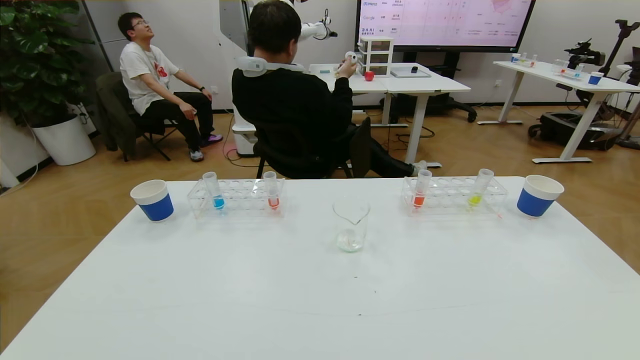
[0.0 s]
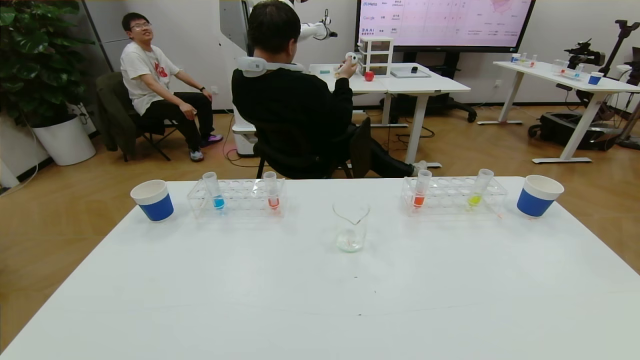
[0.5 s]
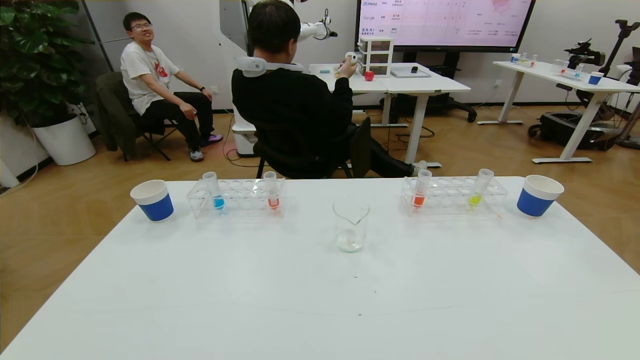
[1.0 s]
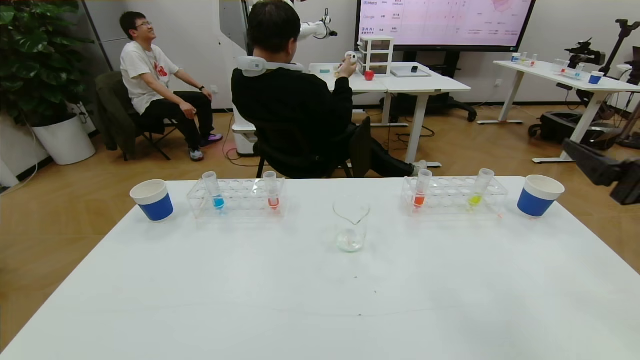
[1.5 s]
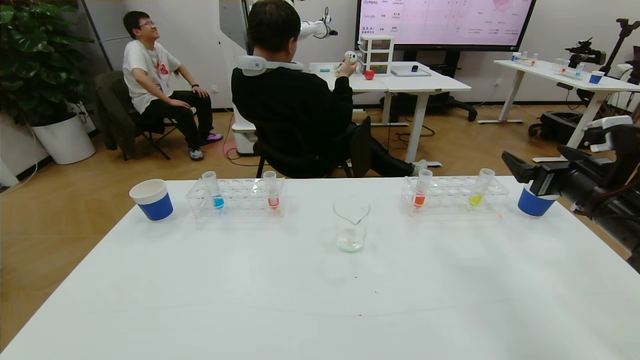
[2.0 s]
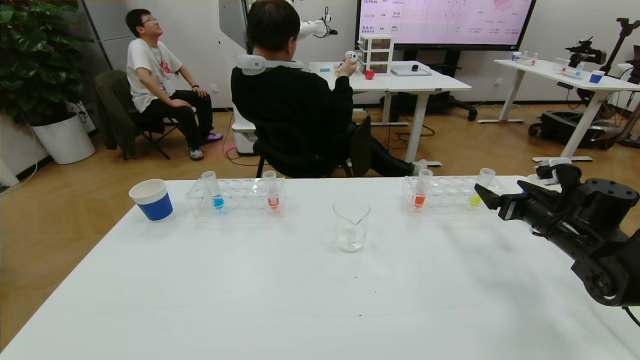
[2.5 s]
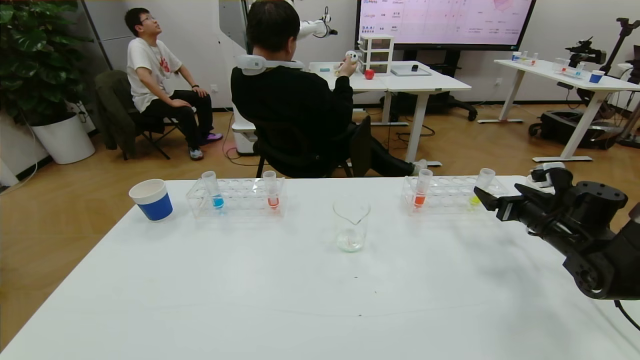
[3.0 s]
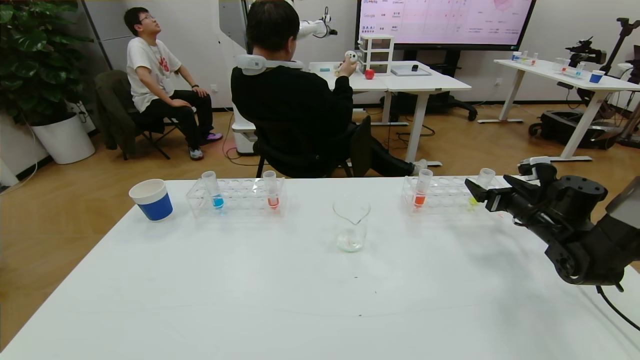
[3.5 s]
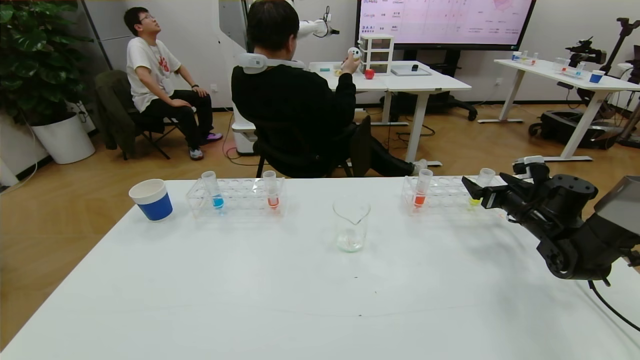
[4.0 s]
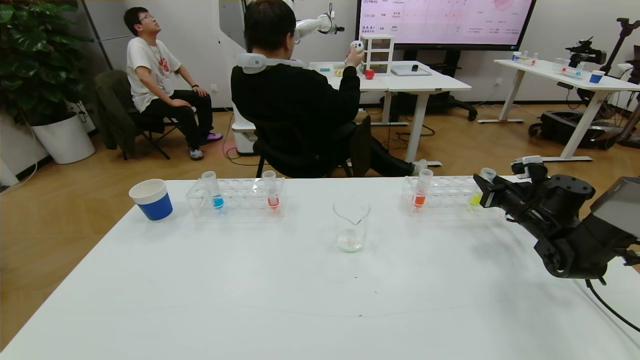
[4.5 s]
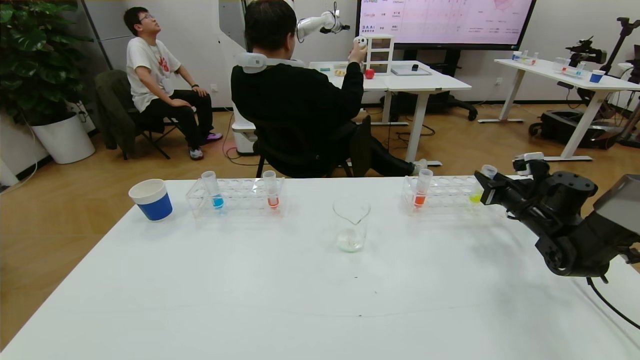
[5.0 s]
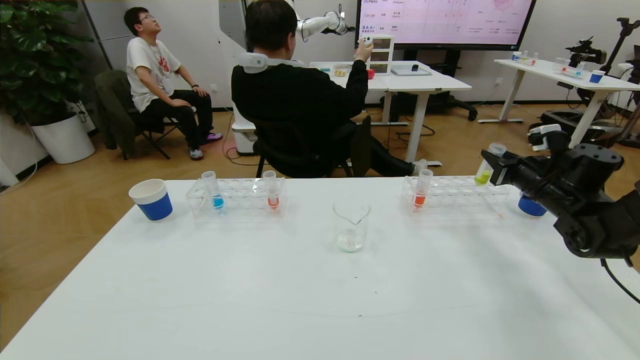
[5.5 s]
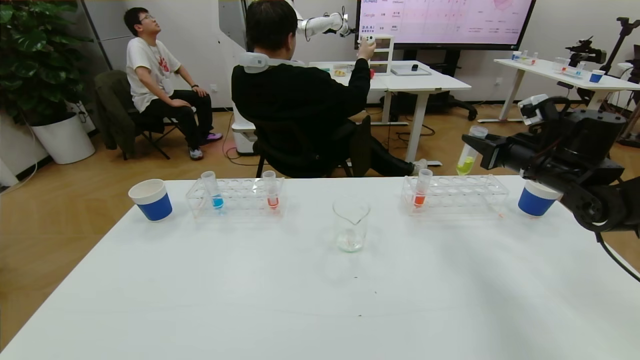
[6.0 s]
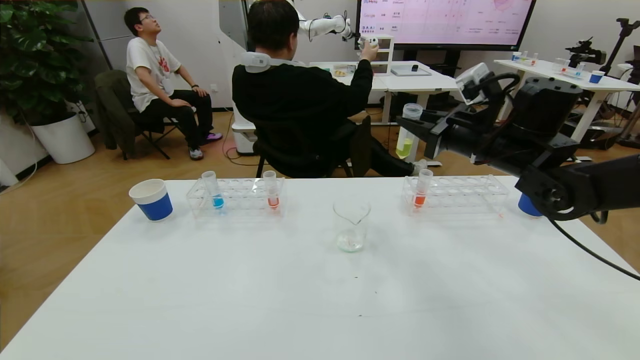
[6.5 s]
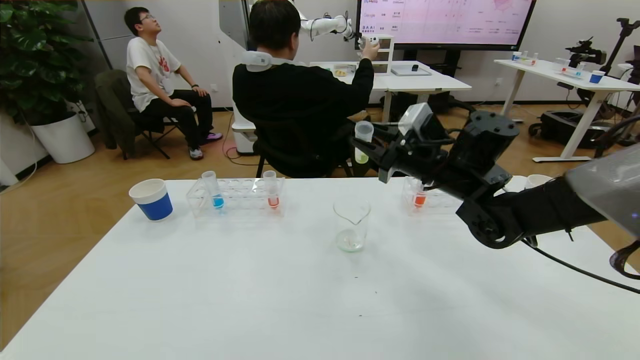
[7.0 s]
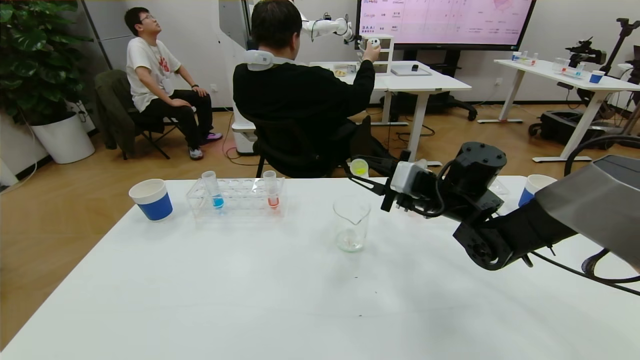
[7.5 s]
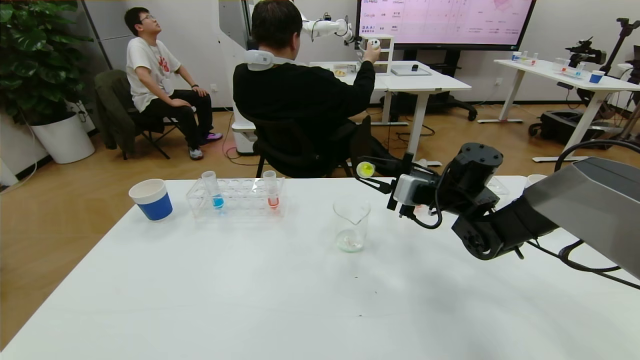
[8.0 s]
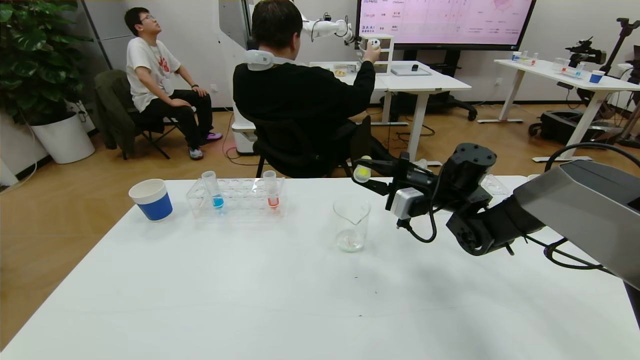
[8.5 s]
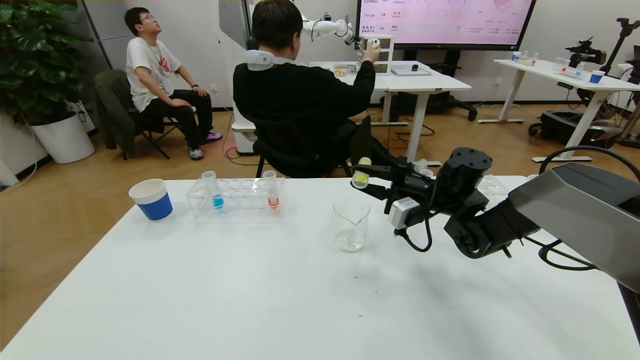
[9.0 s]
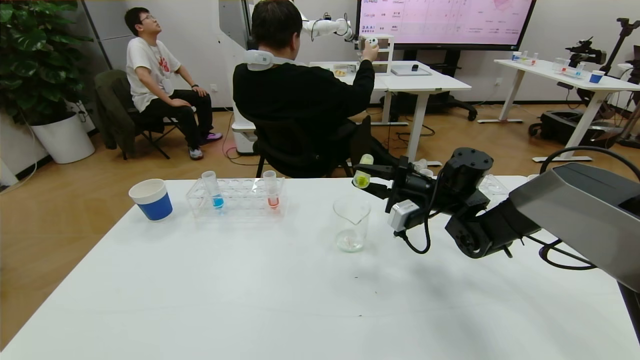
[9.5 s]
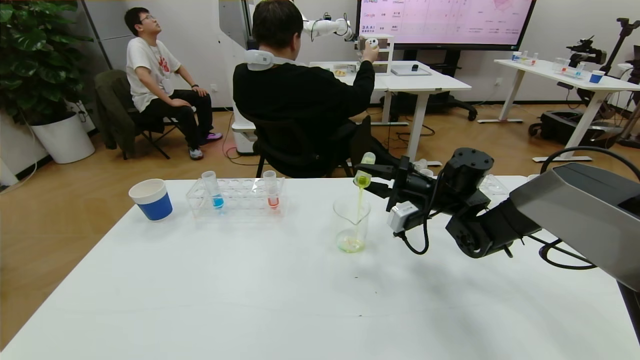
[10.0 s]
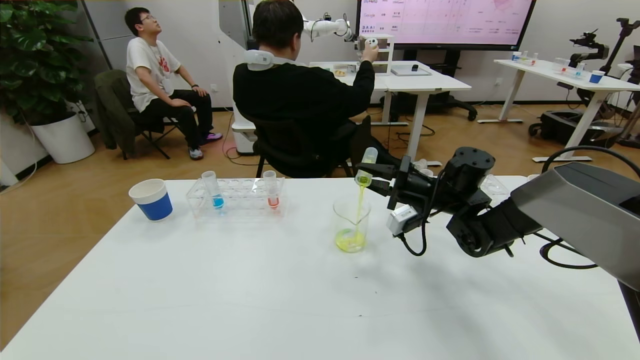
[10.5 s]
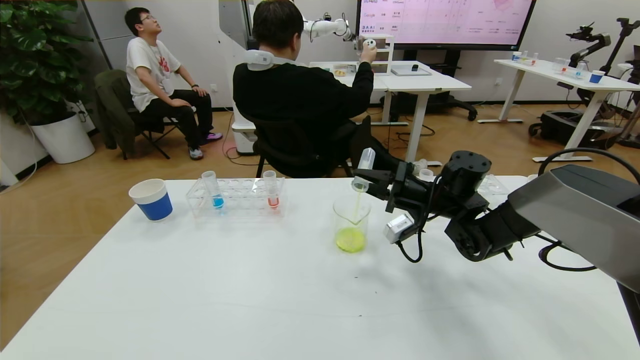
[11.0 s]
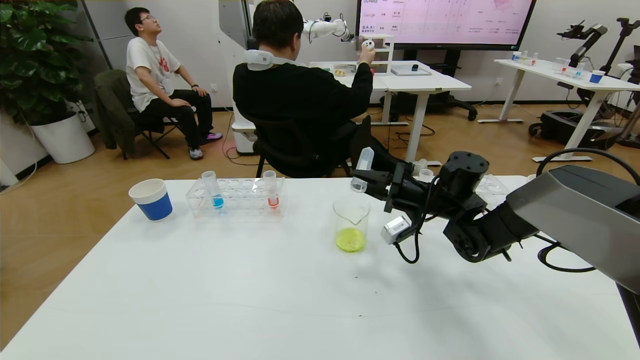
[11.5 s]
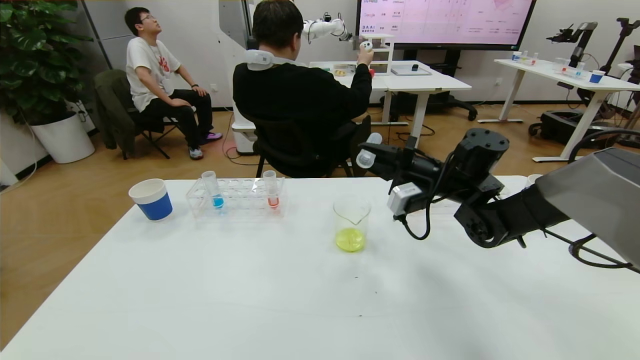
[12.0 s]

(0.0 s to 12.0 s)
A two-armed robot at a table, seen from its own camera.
Task of the whole recording: pick up the test tube with yellow pigment and the test tube with blue pigment by grippers and pour them into the beaker.
0.0 s - 2.0 s: The right gripper travels forward by some 30 cm.
2.0 s - 4.0 s: The right gripper is displaced forward and downward by roughly 15 cm.
4.0 s - 6.0 s: The right gripper goes about 10 cm upward, and closes.
6.0 s - 8.0 s: The right gripper moves to the left, approximately 15 cm.
10.0 s - 12.0 s: The grippers move only a little.

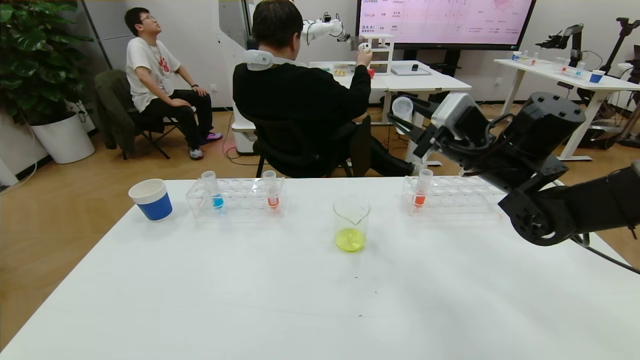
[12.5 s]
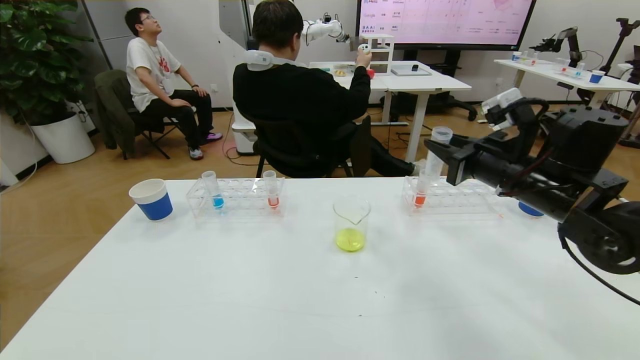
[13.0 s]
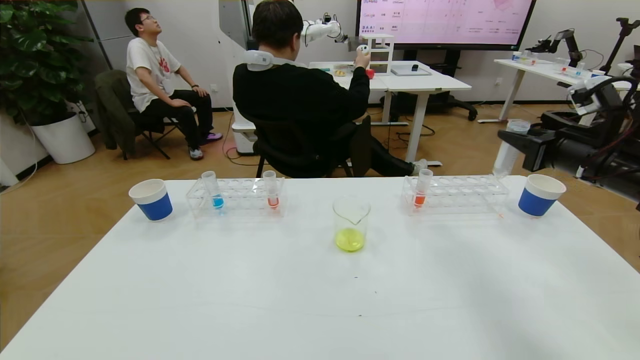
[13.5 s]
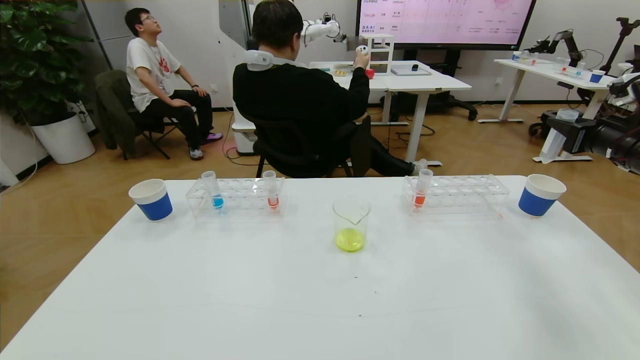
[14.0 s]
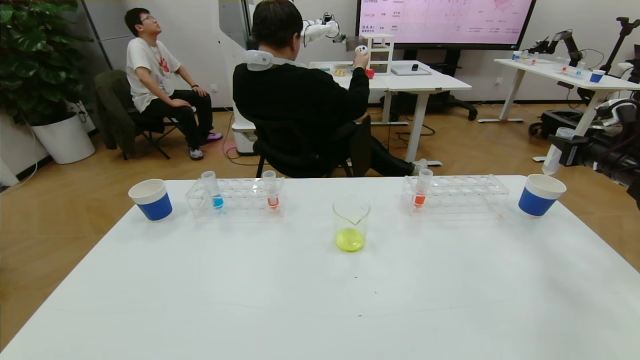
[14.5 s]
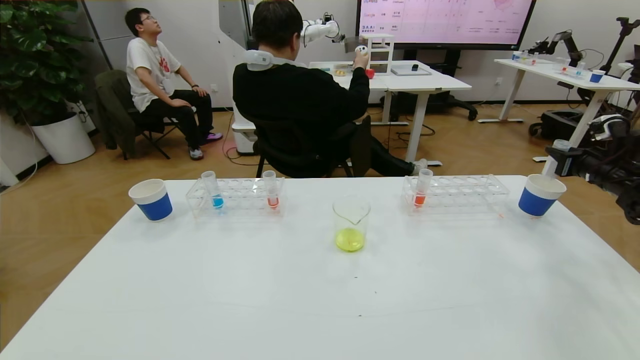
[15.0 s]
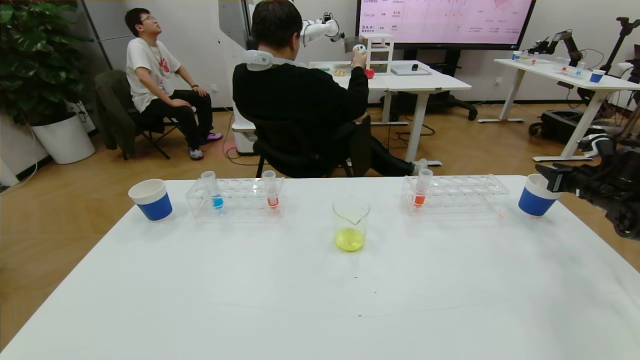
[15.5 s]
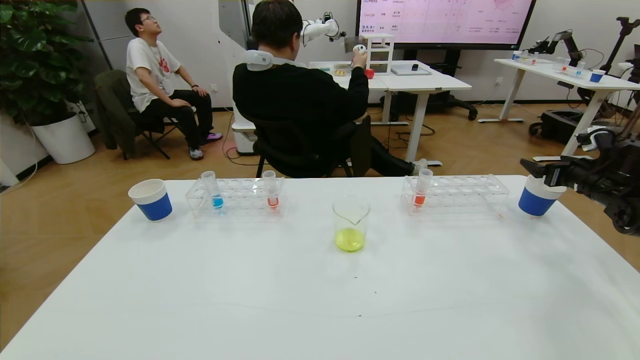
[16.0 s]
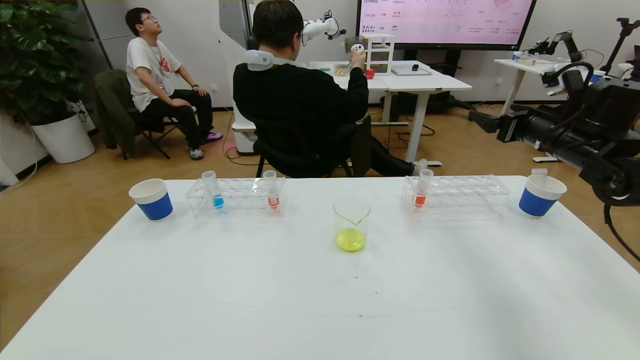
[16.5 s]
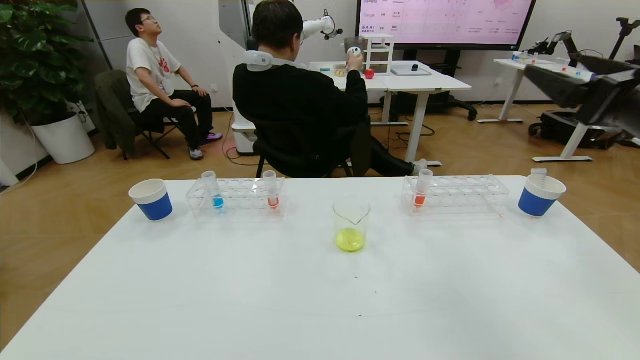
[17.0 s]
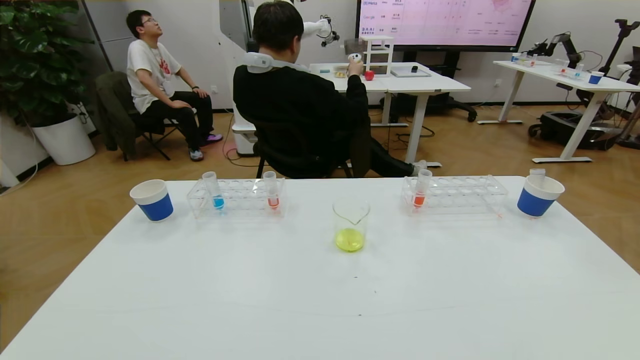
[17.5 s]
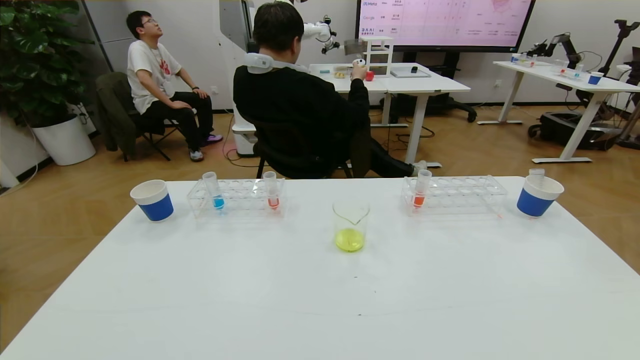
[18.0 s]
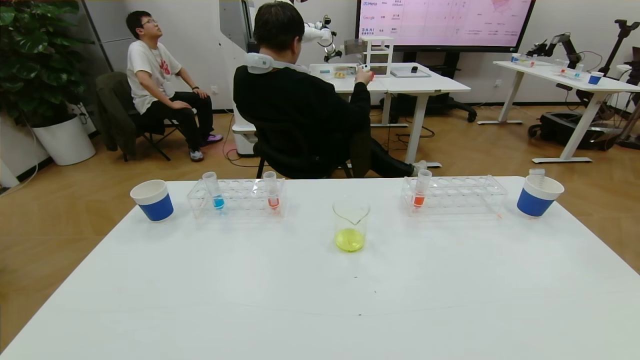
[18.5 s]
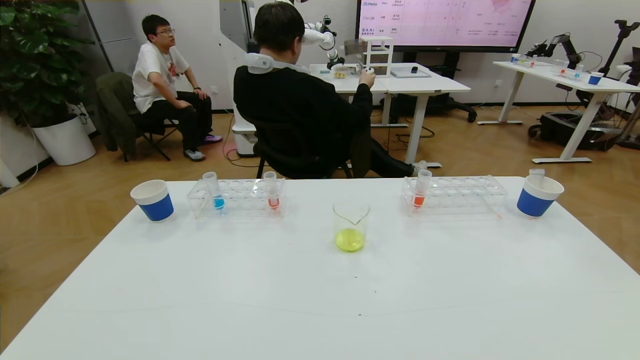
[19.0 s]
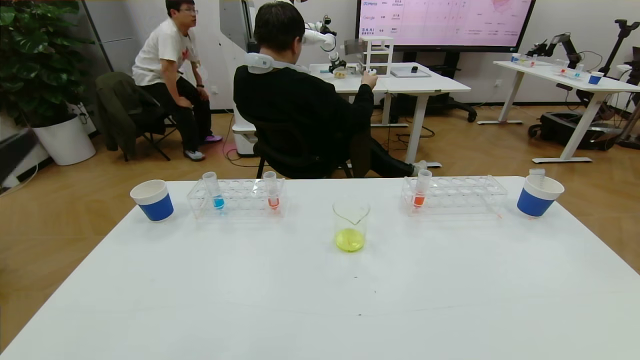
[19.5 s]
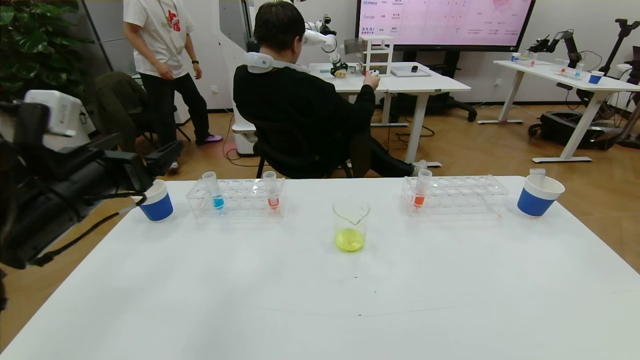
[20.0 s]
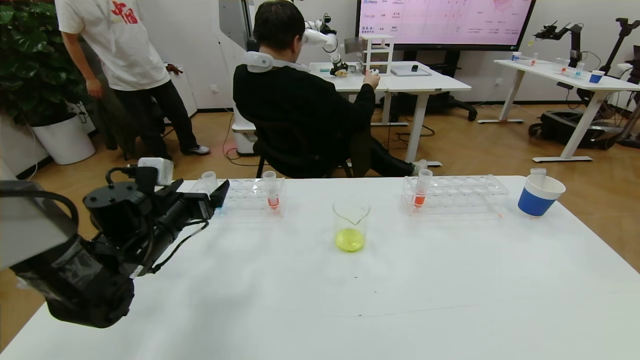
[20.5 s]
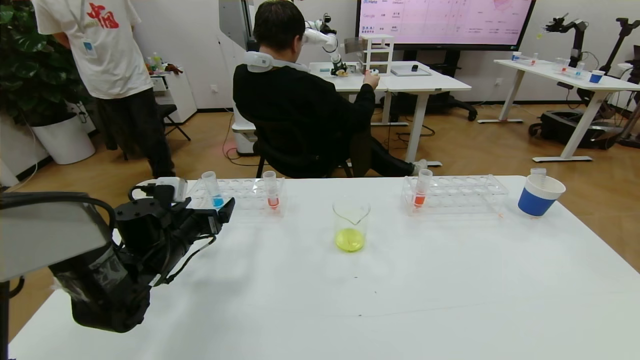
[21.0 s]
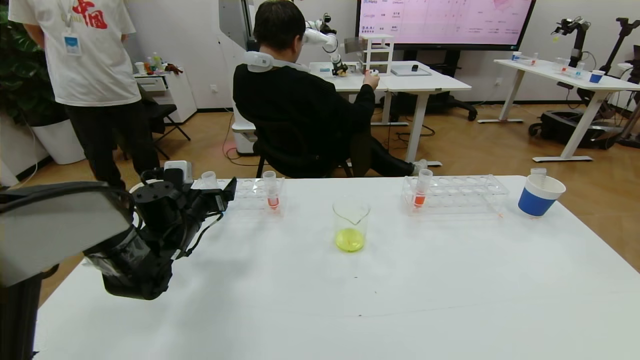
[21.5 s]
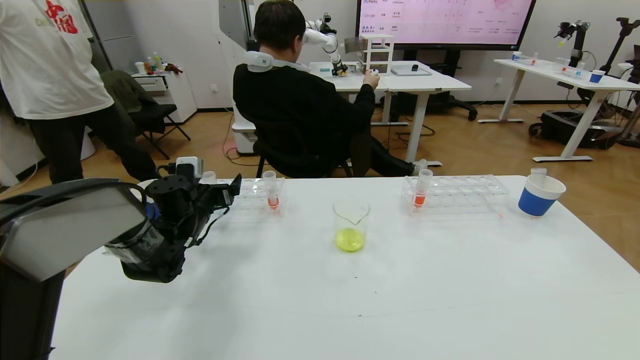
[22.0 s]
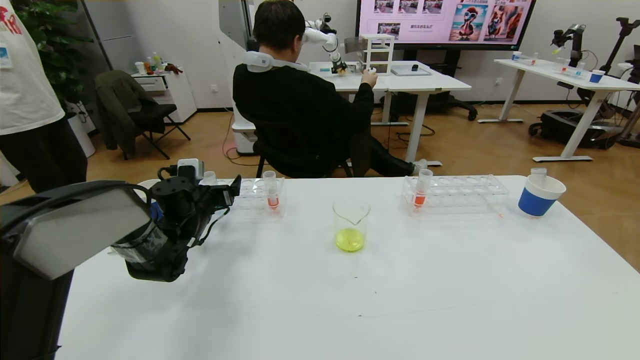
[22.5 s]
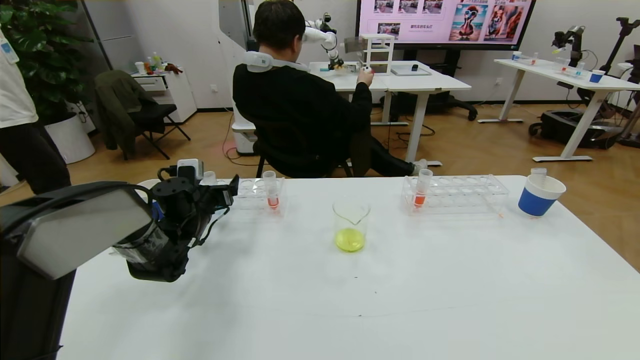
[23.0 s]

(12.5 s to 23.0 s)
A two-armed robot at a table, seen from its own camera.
Task of the whole recording: pick up the test tube with yellow pigment and the test tube with blue pigment by grippers and pour them into the beaker.
Step, 12.5 s - 18.5 s: Pour the yellow reagent into the graduated cylinder and place the test tube into the paper cup.
12.5 s - 14.5 s: The right gripper heads to the right, covering roughly 30 cm.
14.5 s - 16.5 s: The right gripper heads to the left, covering roughly 15 cm, and opens.
16.5 s - 19.0 s: The left gripper goes roughly 10 cm upward. Meanwhile the right gripper is displaced backward by some 40 cm.
19.0 s - 21.0 s: The left gripper goes about 40 cm forward.
21.0 s - 23.0 s: The left gripper moves forward, approximately 10 cm.
